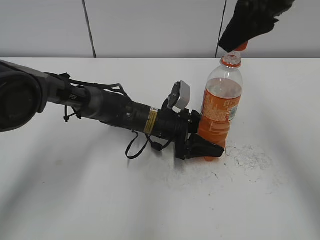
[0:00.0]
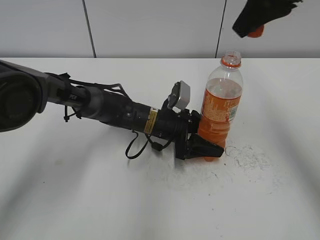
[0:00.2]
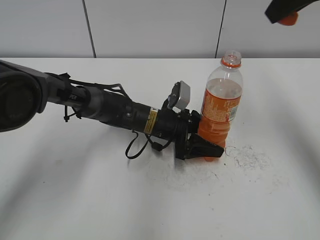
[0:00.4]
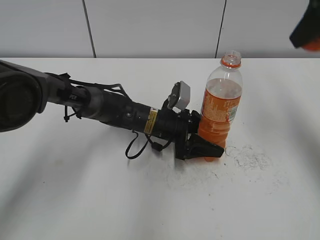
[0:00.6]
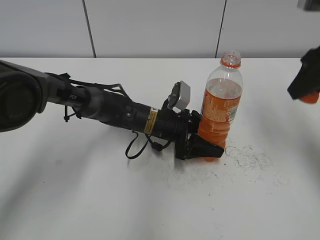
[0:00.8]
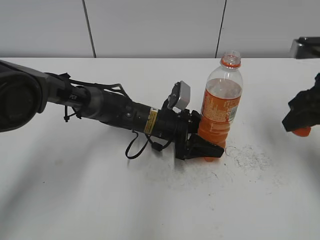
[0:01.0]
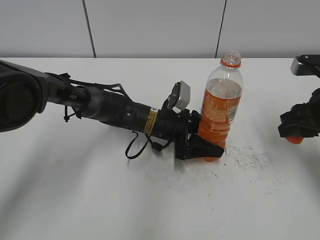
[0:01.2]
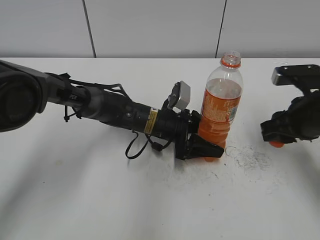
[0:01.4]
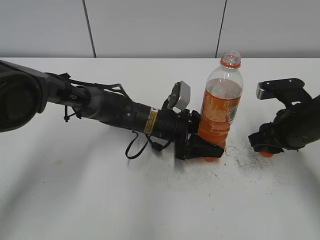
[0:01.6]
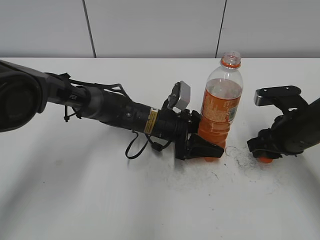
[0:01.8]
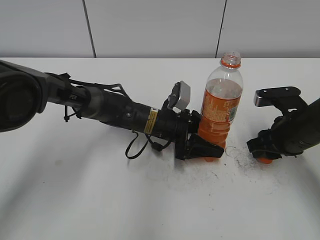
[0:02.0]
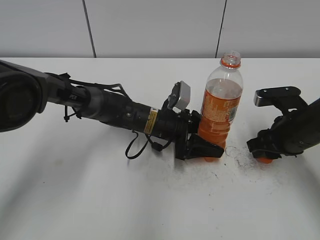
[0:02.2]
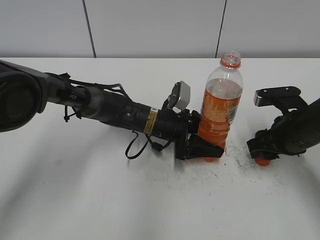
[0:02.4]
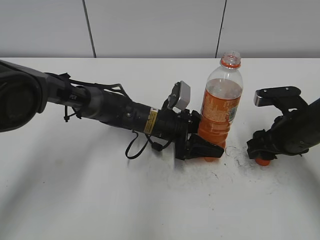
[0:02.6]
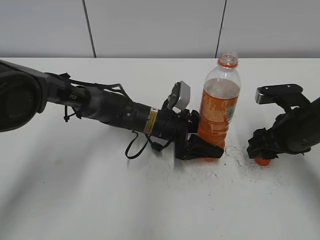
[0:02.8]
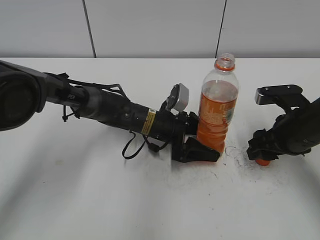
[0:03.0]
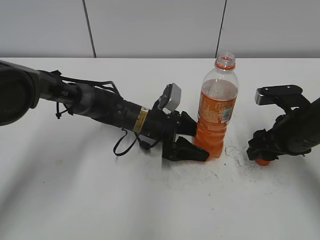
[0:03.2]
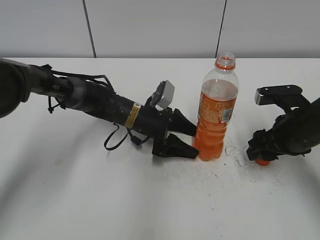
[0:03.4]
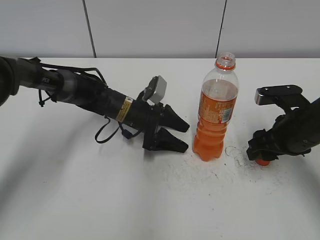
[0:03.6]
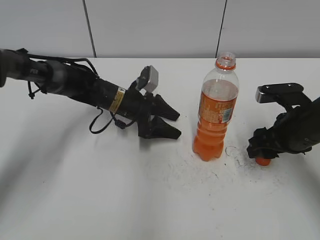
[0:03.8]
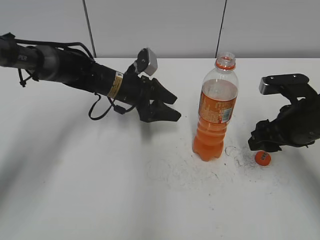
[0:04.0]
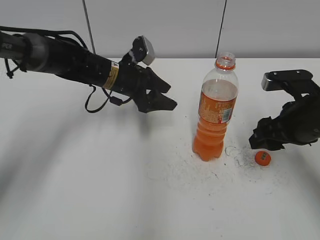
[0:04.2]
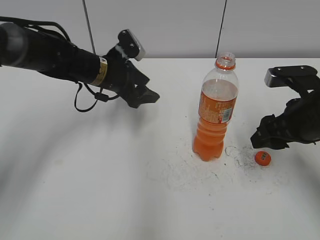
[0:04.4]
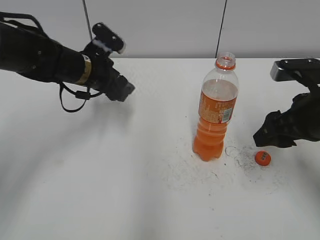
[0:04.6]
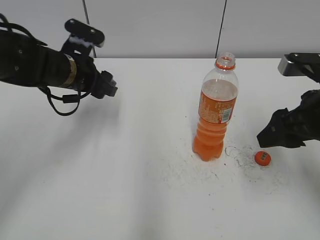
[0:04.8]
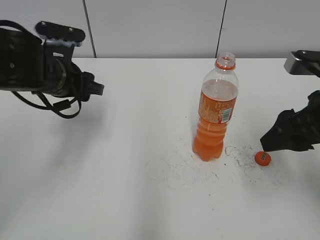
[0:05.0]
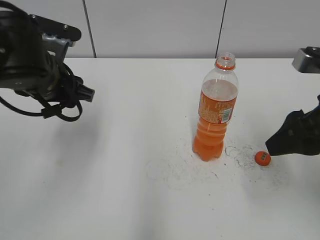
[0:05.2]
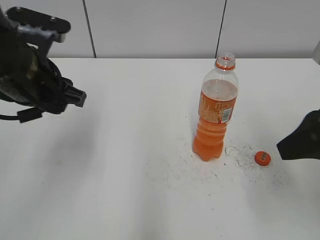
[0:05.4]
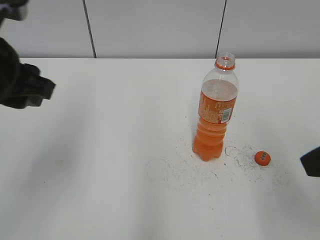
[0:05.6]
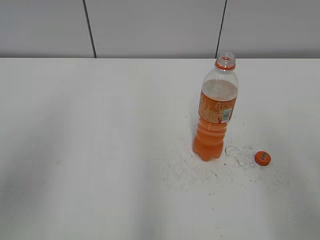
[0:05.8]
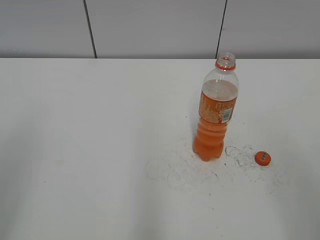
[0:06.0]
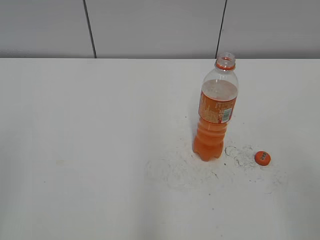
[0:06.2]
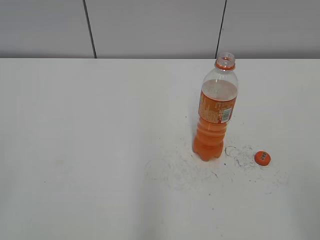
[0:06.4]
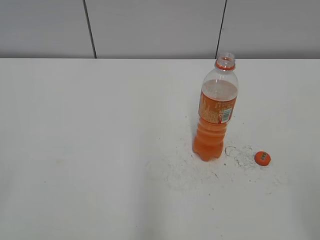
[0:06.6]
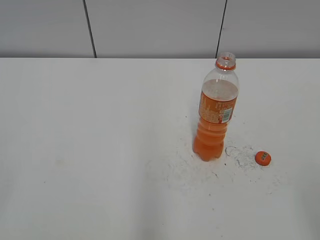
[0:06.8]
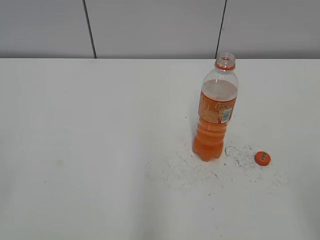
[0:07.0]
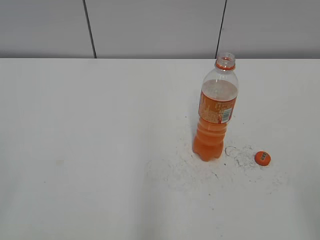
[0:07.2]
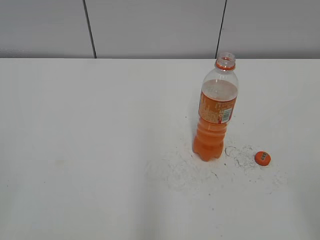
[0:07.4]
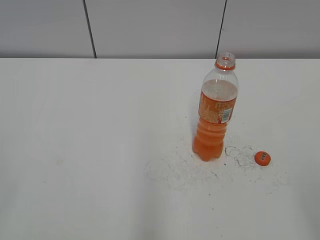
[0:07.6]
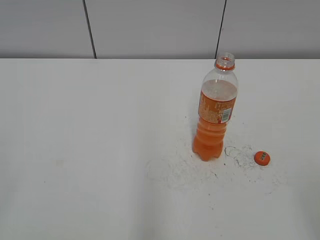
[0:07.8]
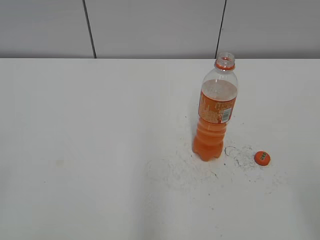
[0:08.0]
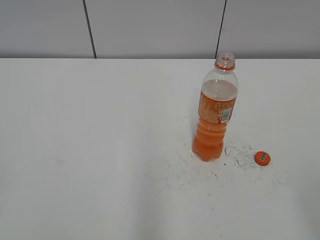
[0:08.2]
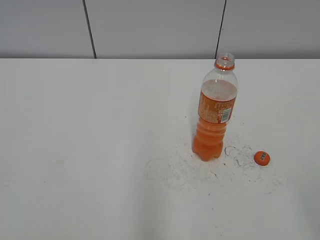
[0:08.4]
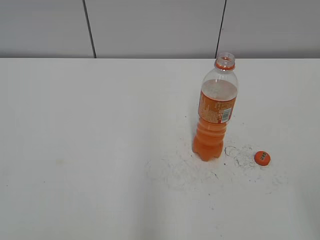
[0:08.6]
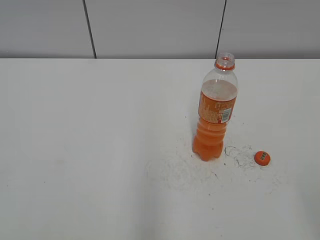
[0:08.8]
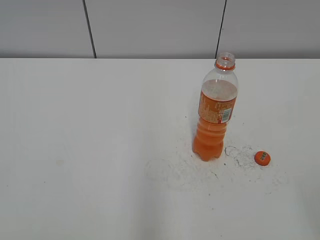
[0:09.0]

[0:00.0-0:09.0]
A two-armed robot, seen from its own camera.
Step, 0:00.0 to 0:02.2: Place the bottle cap on the table with the right hand.
Step, 0:02.6 to 0:03.0: Place the Mirinda with the left hand.
0:00.0 to 0:01.6: The right gripper heads downward and to the right, covering approximately 25 cm.
0:01.6 to 0:03.0: The right gripper opens.
0:03.0 to 0:04.4: The left gripper moves to the left and upward, approximately 15 cm, and closes up.
0:04.4 to 0:06.0: The left gripper is displaced backward, upward and to the left by approximately 40 cm, and closes. The right gripper shifts about 25 cm backward and upward.

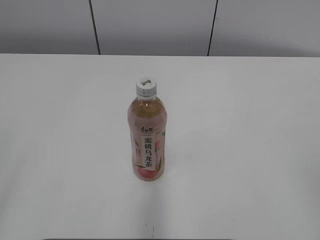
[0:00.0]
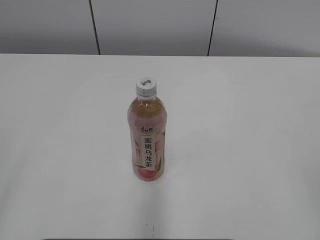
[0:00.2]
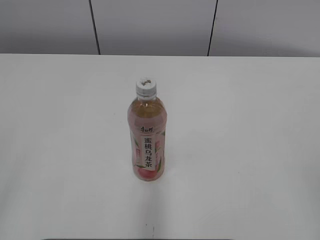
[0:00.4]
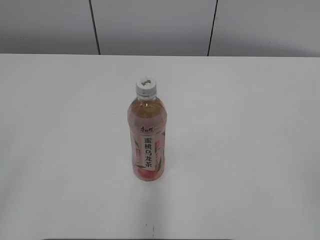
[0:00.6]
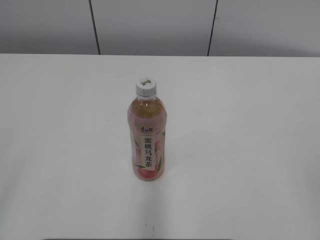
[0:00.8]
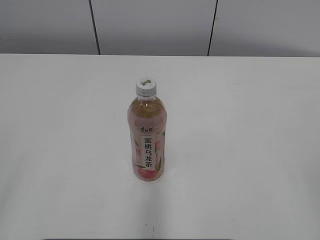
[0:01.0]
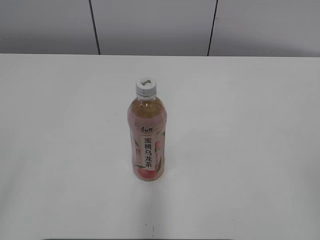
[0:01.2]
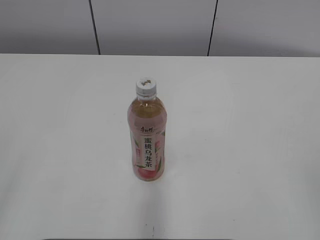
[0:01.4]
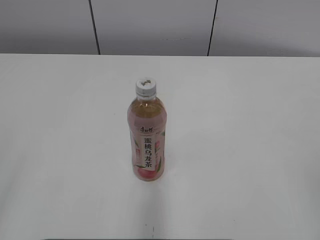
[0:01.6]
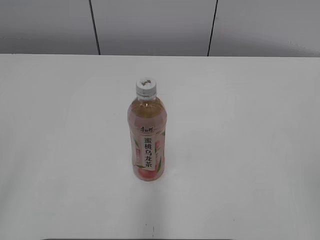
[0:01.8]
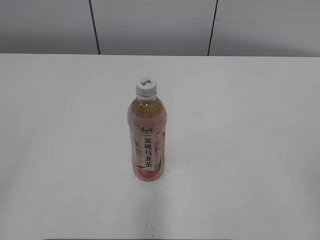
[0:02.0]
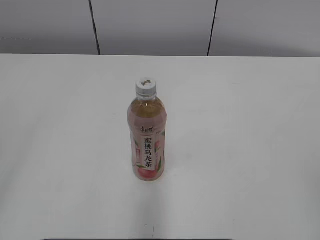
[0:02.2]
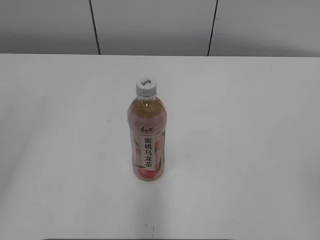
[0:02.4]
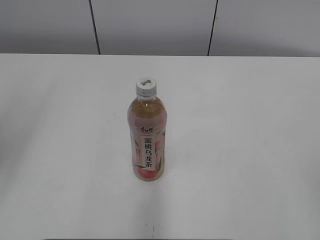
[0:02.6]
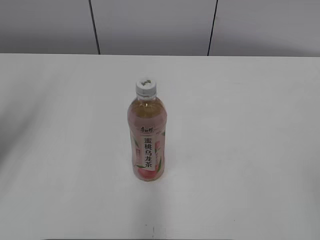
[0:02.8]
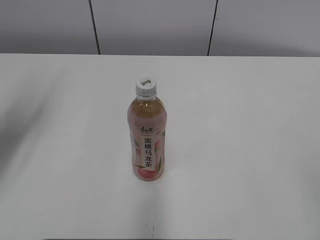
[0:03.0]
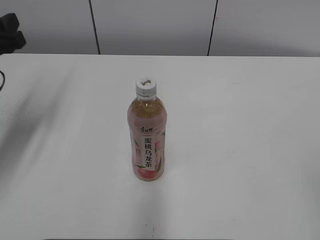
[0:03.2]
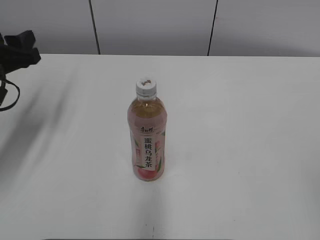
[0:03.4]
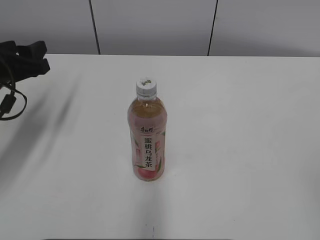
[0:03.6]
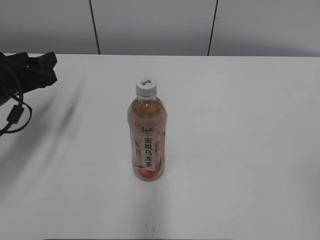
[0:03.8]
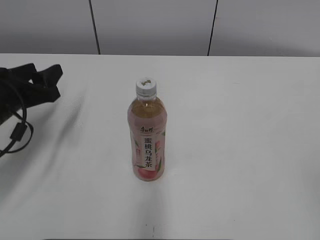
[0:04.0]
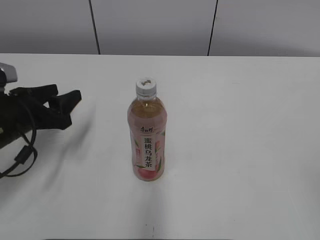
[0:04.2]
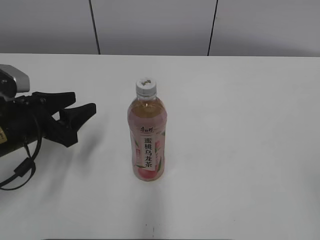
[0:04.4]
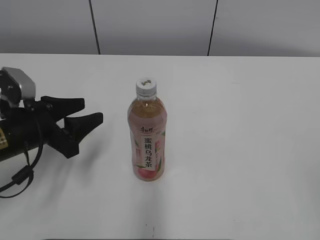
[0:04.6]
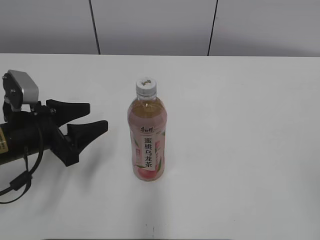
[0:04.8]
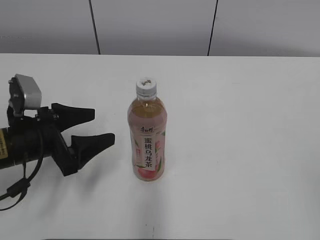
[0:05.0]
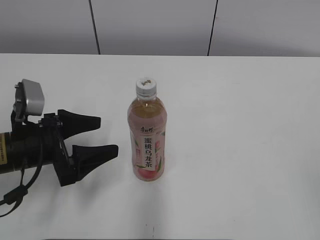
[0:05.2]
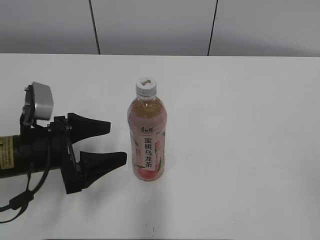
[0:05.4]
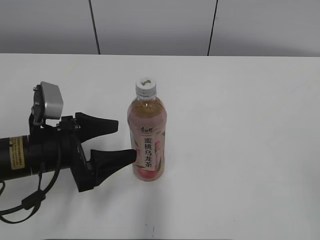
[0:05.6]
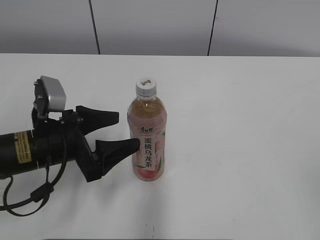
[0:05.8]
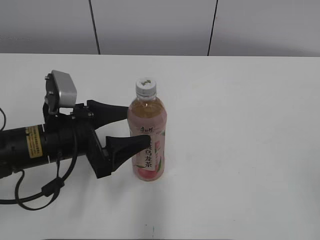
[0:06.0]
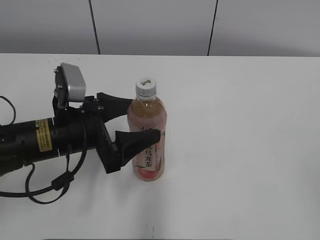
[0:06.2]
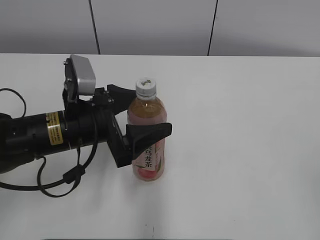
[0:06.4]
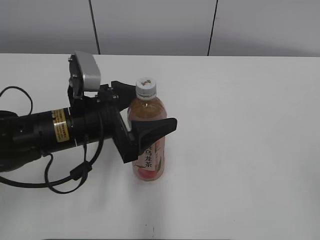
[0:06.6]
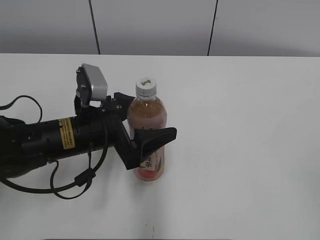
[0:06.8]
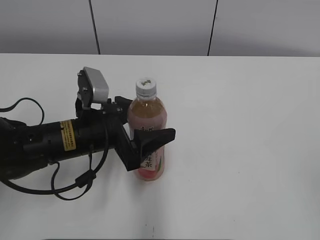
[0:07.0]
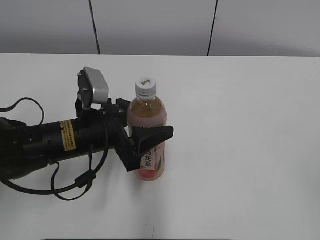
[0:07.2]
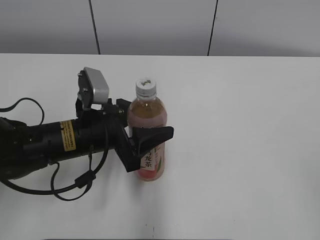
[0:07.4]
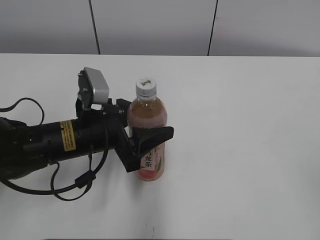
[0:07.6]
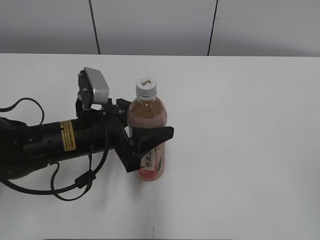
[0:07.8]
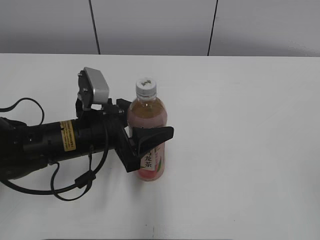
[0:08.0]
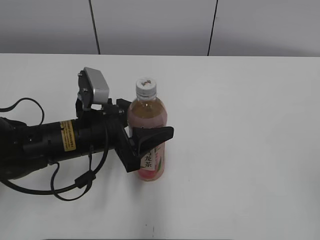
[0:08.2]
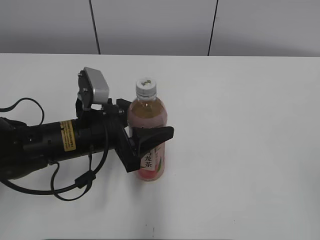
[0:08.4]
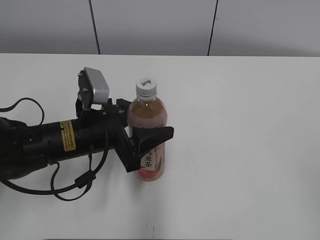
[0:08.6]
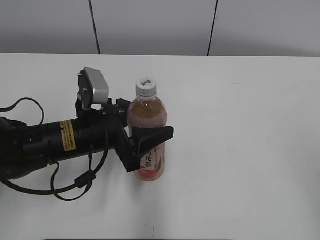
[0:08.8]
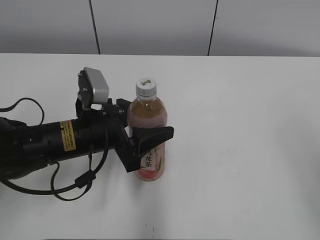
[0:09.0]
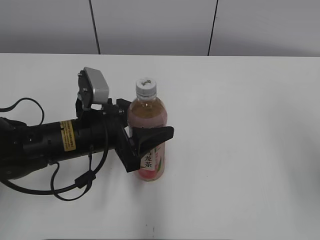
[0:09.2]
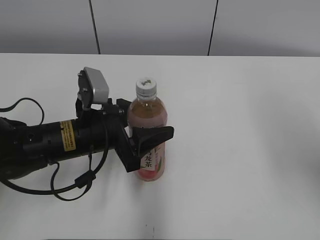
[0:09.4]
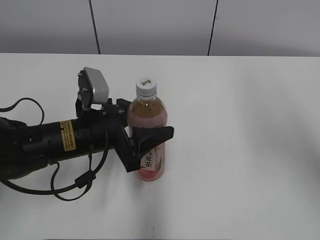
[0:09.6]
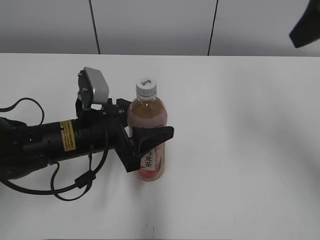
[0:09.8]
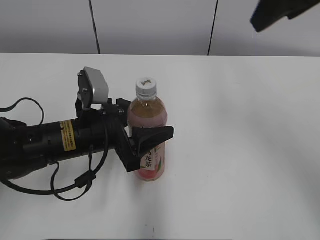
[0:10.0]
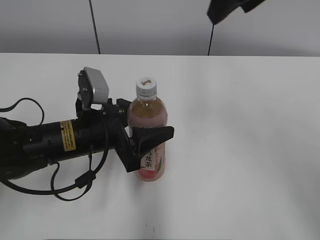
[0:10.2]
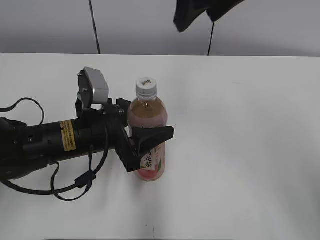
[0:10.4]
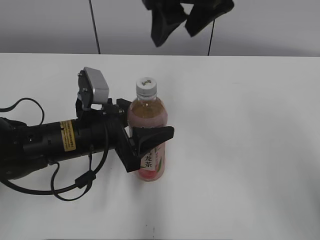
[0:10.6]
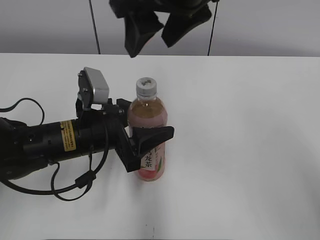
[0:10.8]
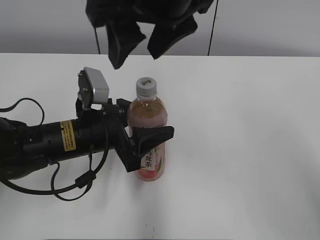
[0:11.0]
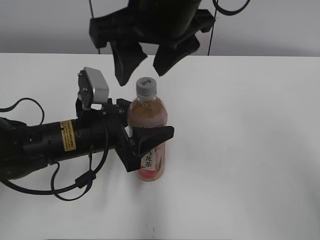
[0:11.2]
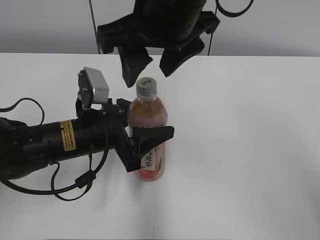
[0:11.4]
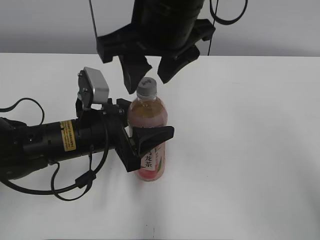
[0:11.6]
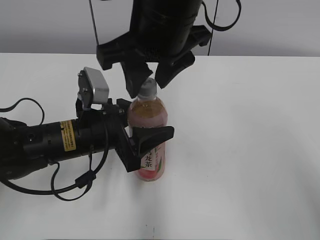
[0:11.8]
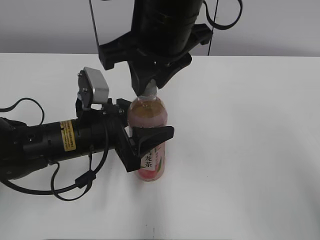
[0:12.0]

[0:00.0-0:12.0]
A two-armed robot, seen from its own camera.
Step, 0:00.0 to 0:10.4: Grab the Peach Oolong Tea with the left hand.
0:01.6 to 0:03.0: The left gripper is displaced forward by about 25 cm, and closes up.
0:03.0 to 0:04.4: The left gripper moves downward and to the right, some 15 cm.
0:04.4 to 0:06.0: The left gripper moves to the right, roughly 5 cm, and opens.
0:06.0 to 0:07.6: The left gripper changes place by approximately 5 cm, and closes its fingers.
0:09.0 to 0:10.4: The right gripper is displaced forward and to the left by about 30 cm.
0:10.4 to 0:12.0: The right gripper shifts some 10 cm to the left and downward, and closes.

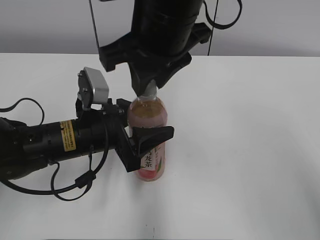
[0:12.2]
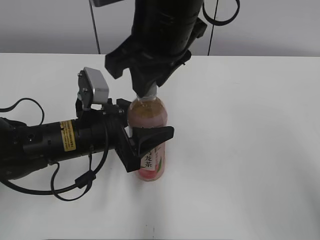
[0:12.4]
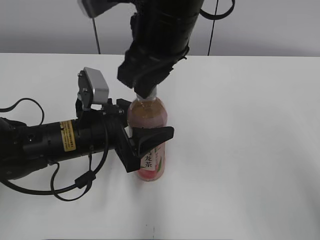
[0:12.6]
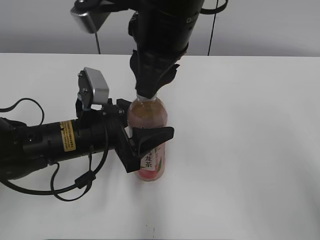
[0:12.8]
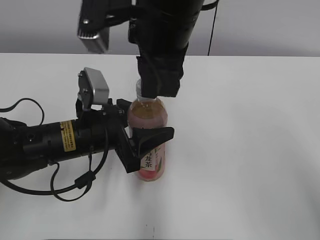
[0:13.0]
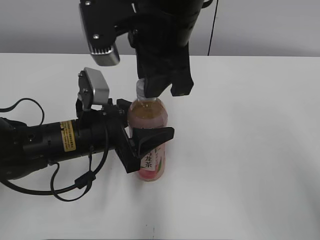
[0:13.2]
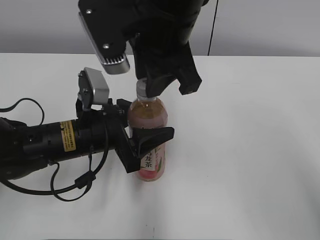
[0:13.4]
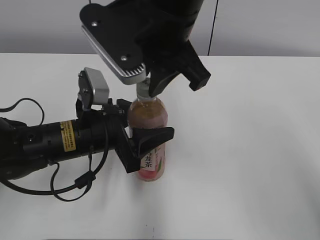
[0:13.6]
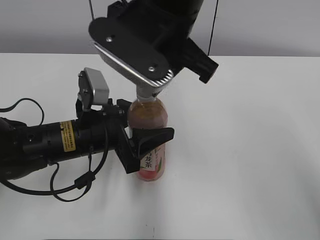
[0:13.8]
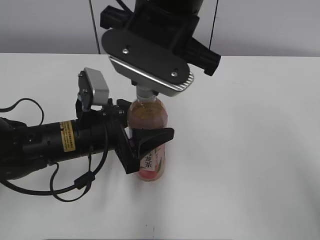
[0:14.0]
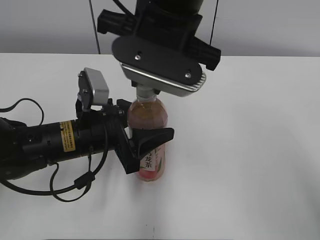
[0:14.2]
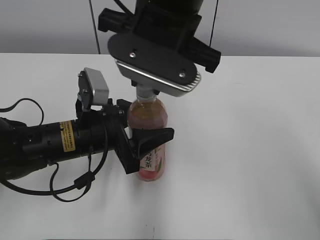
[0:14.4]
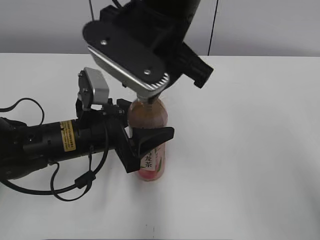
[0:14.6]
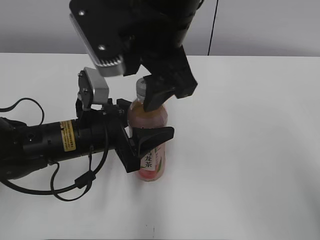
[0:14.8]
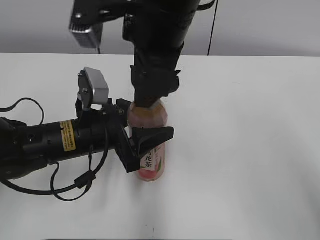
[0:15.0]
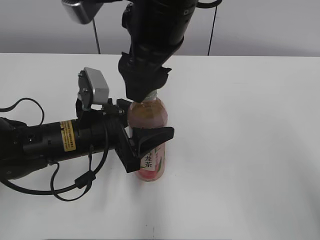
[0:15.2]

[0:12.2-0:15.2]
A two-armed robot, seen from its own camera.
0:13.8 to 0:15.2: The right gripper opens up.
